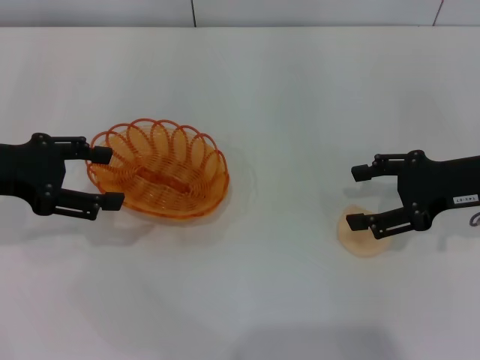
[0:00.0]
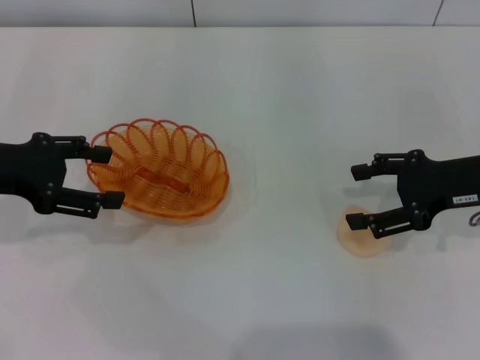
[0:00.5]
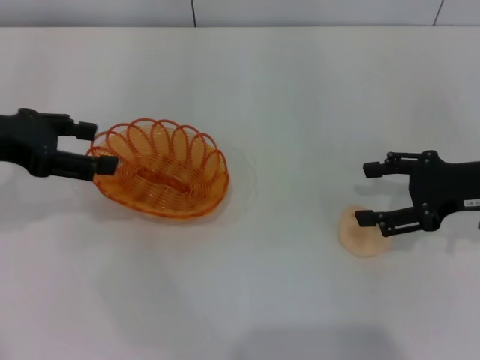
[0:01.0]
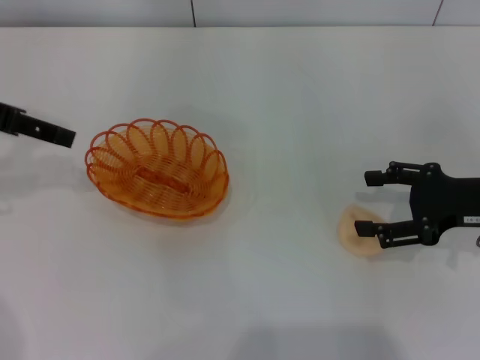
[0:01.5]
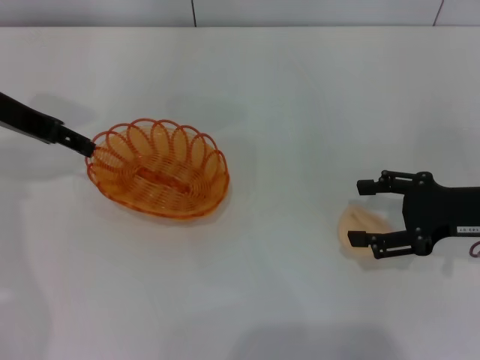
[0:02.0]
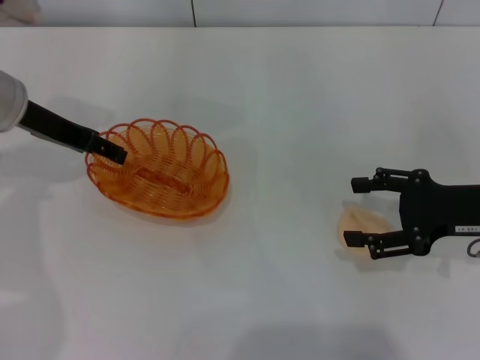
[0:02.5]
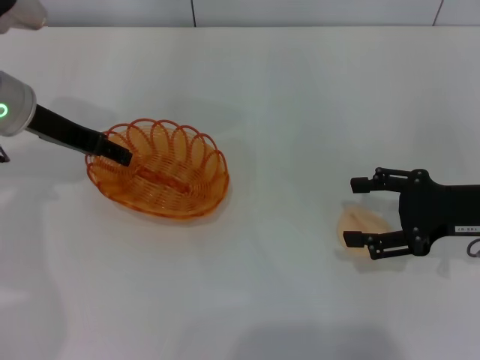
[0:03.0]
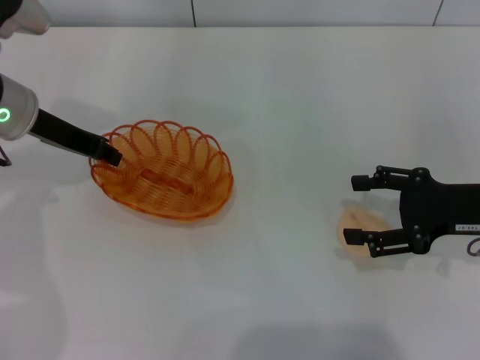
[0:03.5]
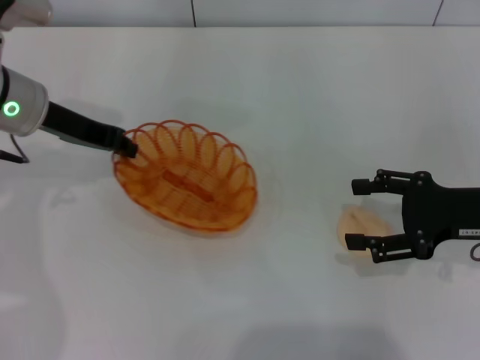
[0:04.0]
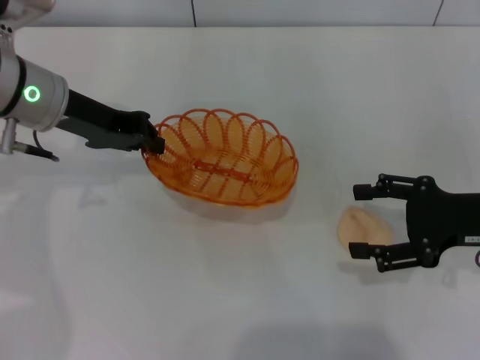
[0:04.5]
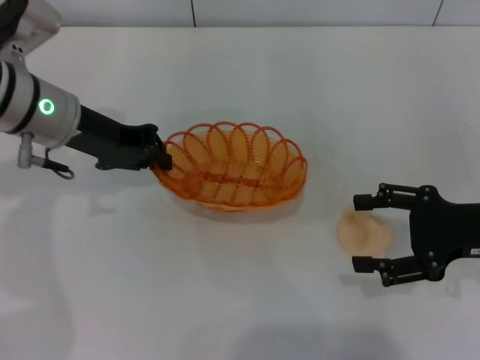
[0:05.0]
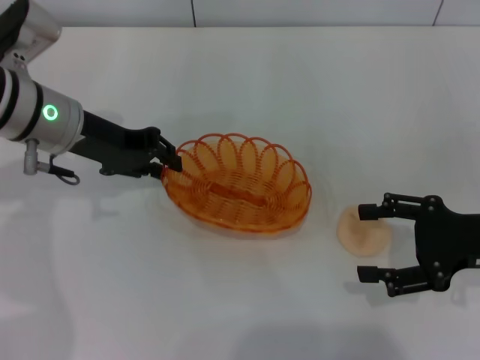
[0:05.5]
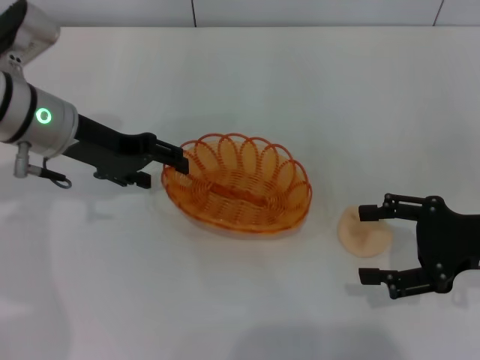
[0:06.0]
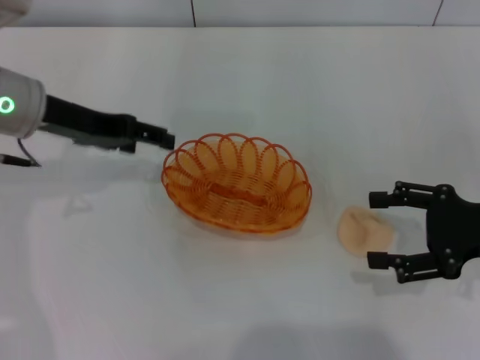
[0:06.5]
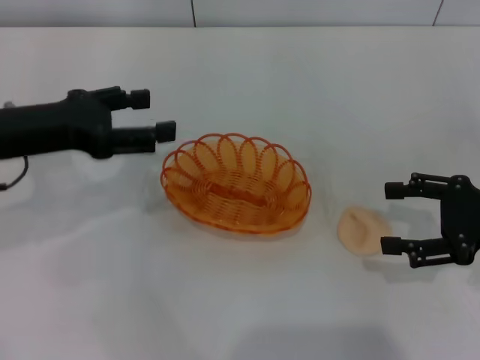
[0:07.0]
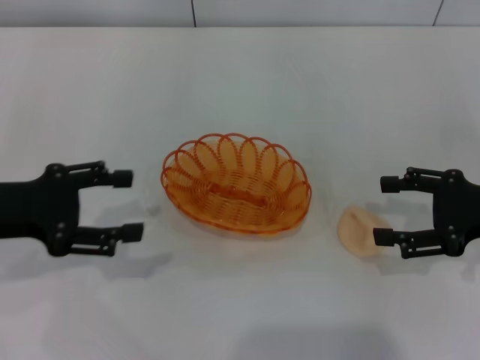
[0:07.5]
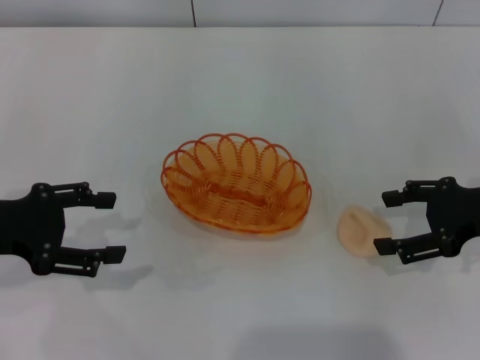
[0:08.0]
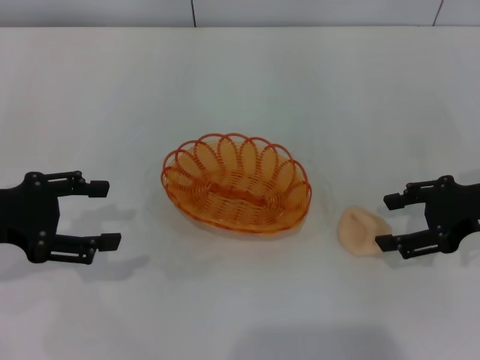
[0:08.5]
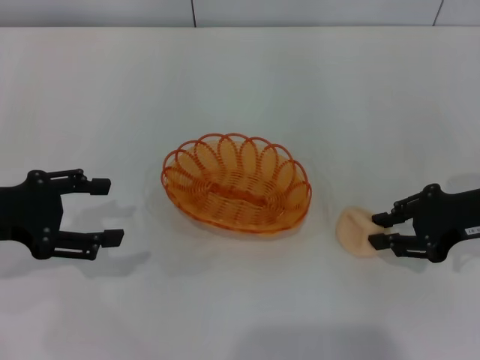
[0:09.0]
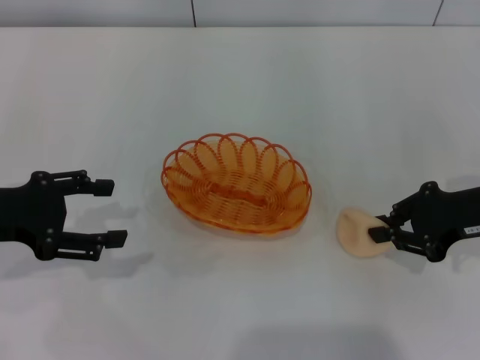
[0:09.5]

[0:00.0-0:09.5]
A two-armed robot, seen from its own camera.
Step, 0:00.0 to 0:04.5: Pick up the basket with the left gripper.
Step, 0:05.0 to 0:06.5: Place the basket in the center of view with the left gripper.
0:00.0 to 0:02.0: The left gripper shifts some 5 cm forward.
0:02.0 to 0:04.0: The left gripper changes place by some 5 cm, and closes its fingers.
0:05.5 to 0:07.5: The left gripper goes roughly 15 cm backward and to the left, and opens its fingers.
0:07.5 to 0:09.5: The right gripper closes up.

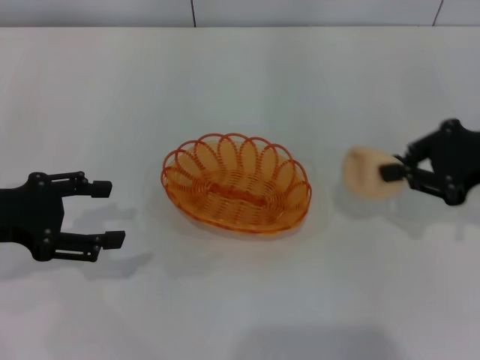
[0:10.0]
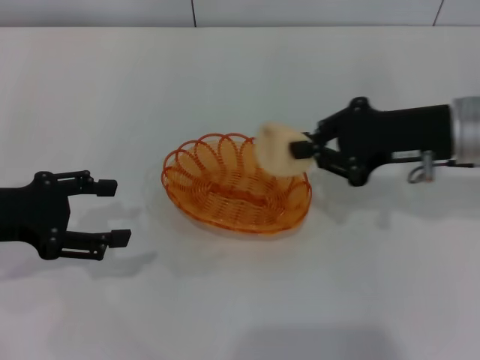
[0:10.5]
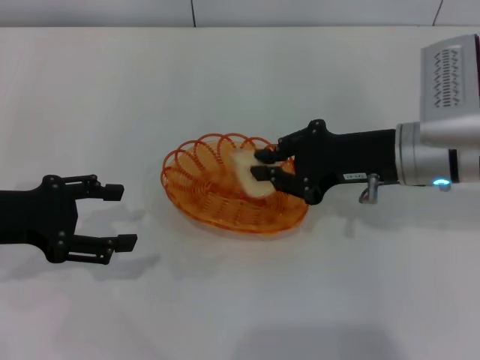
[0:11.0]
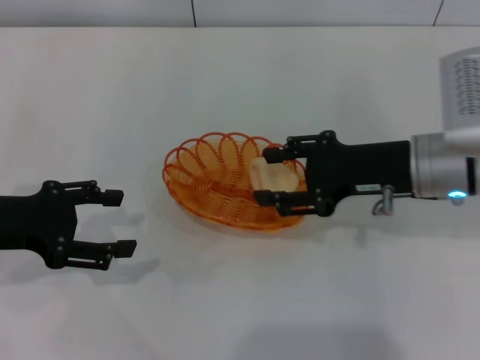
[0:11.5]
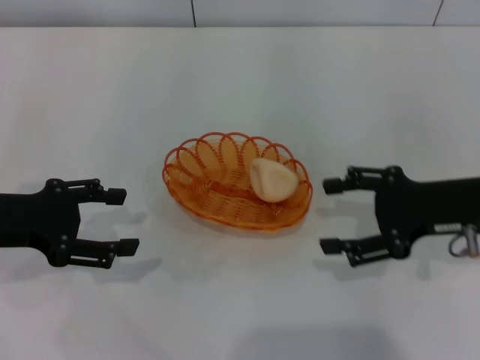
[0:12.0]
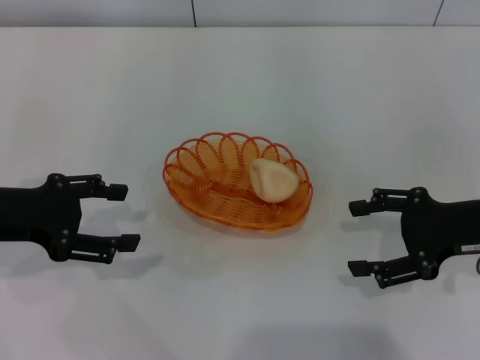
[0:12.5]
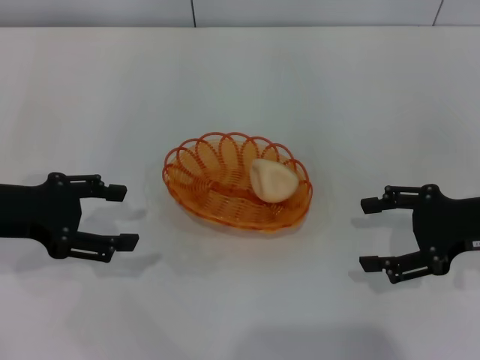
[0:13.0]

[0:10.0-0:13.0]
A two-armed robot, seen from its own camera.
Step, 0:10.0 to 0:11.5: Place the egg yolk pastry into the basket with the right gripper.
0:10.0 to 0:11.5: The right gripper shifts about 10 cm to the left, and opens up.
0:11.5 to 0:13.0: The right gripper goes about 10 cm to the right, and opens up.

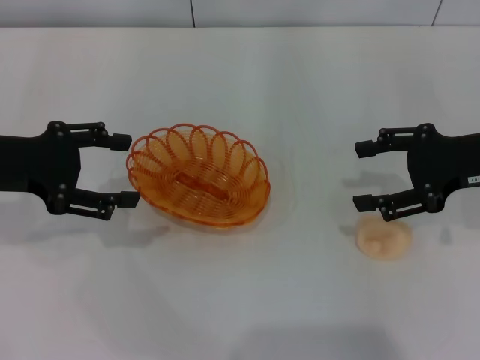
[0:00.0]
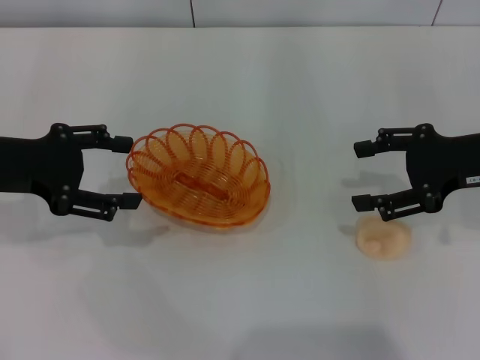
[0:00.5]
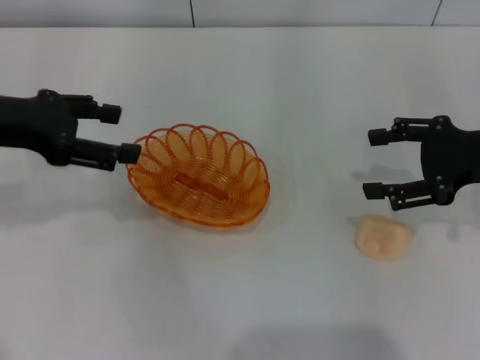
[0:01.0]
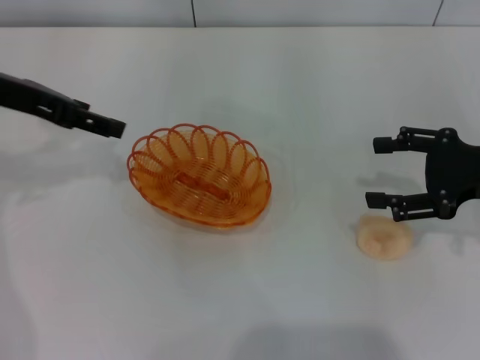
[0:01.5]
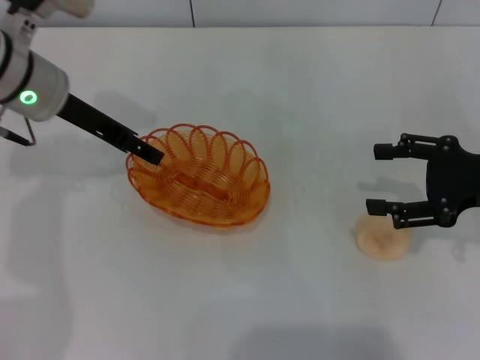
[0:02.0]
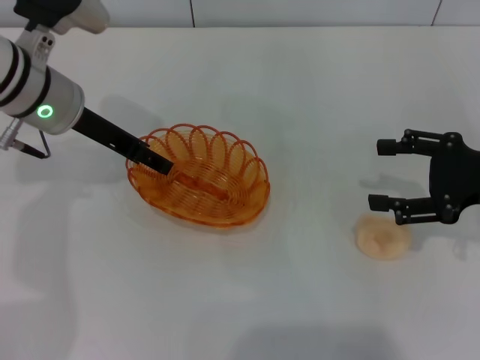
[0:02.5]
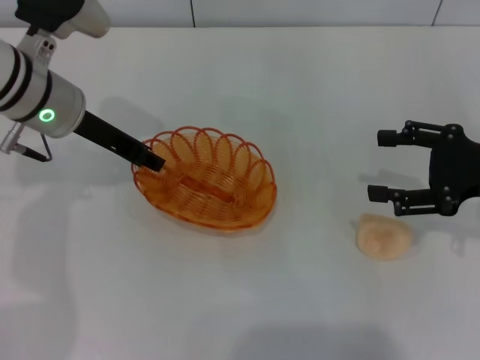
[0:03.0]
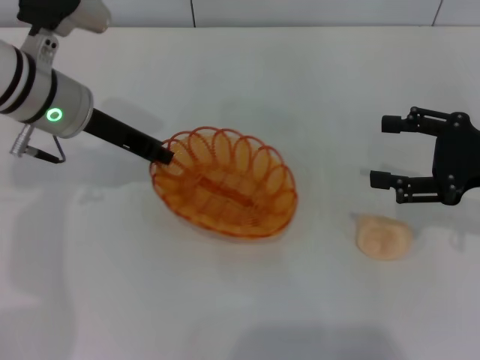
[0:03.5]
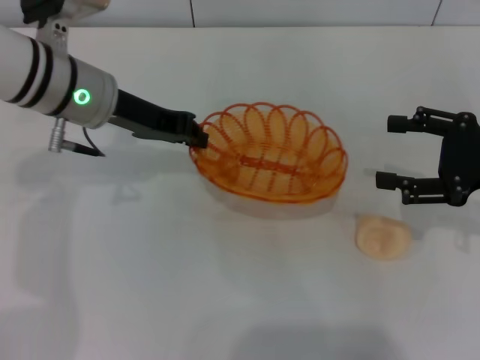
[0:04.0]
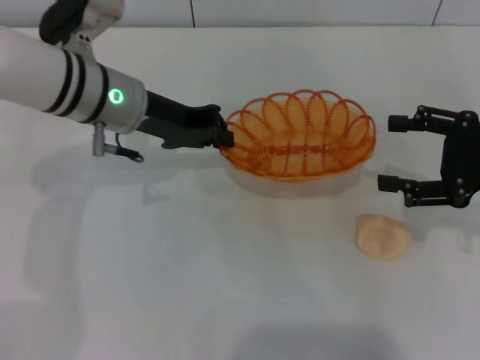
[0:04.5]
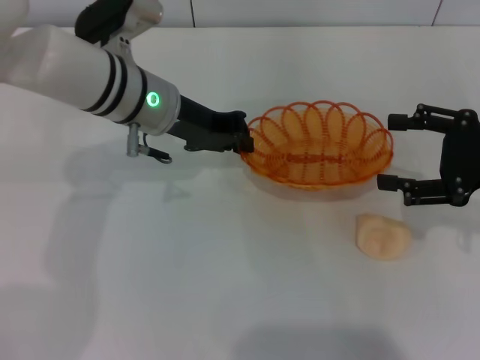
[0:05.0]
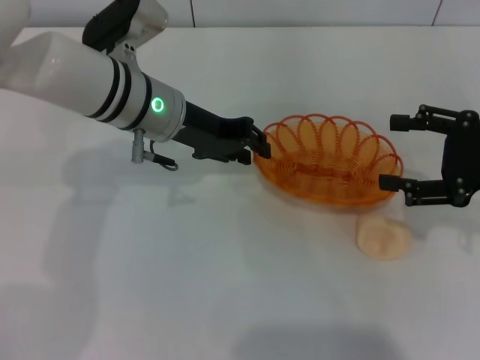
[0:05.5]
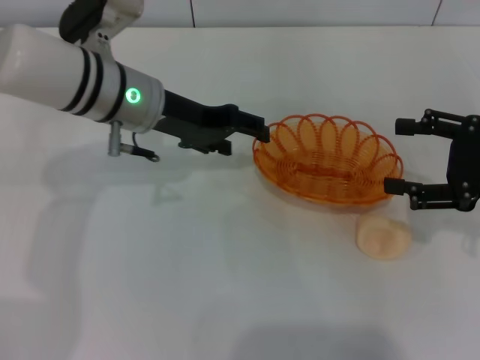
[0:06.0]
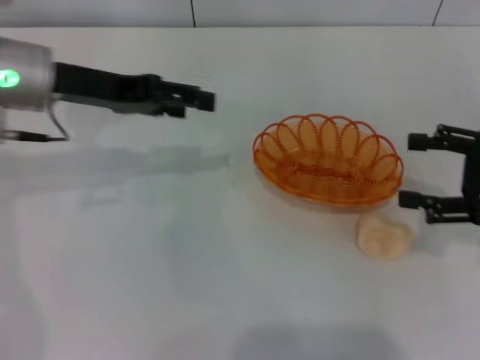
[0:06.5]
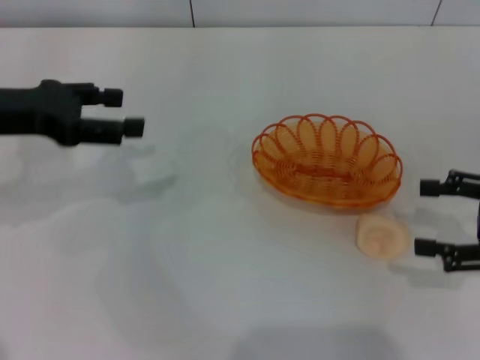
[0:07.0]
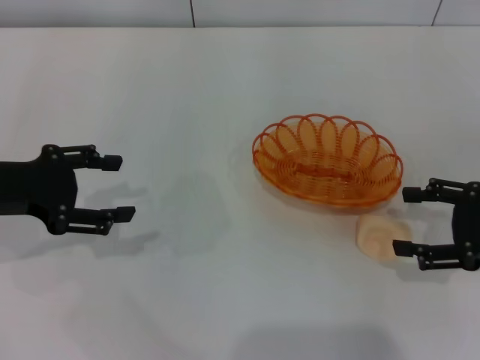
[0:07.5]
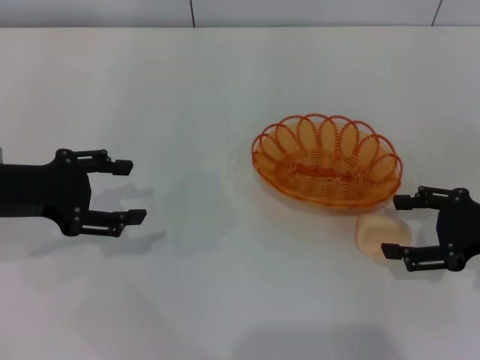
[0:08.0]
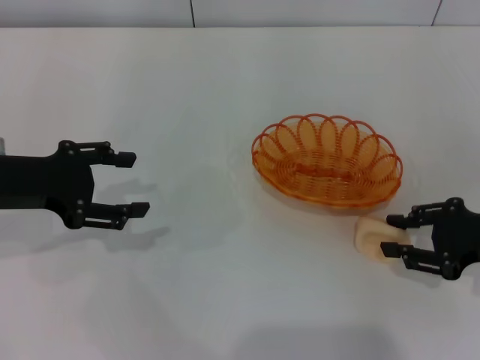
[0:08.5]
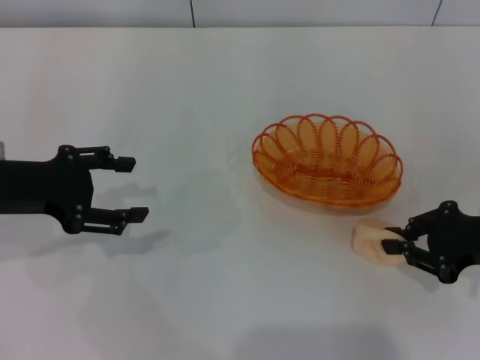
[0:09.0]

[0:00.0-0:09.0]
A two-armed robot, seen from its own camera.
Step, 0:00.0 to 0:03.5: Pick up the basket with the left gripper.
Step, 0:04.5 to 0:06.0: Place the basket in the center of view with the left gripper.
0:00.0 to 0:02.0: The left gripper travels forward and to the right by some 10 cm.
0:02.0 to 0:04.5: The left gripper is displaced to the right by roughly 5 cm, and closes.
0:04.5 to 0:07.0: The left gripper travels to the left and backward by about 15 cm, and opens its fingers. Meanwhile the right gripper shifts by about 5 cm.
0:07.0 to 0:09.0: The left gripper shifts by approximately 5 cm; the right gripper moves approximately 5 cm, and closes its fingers.

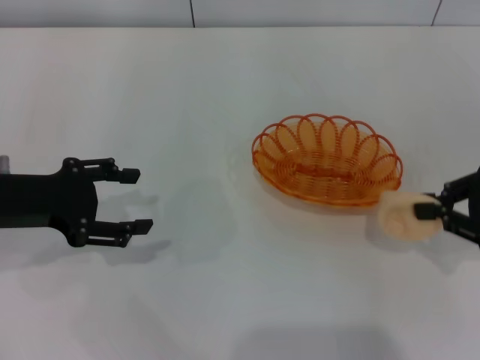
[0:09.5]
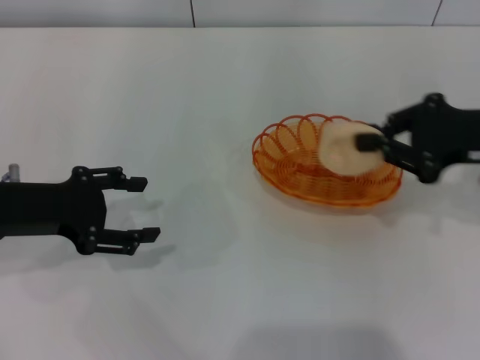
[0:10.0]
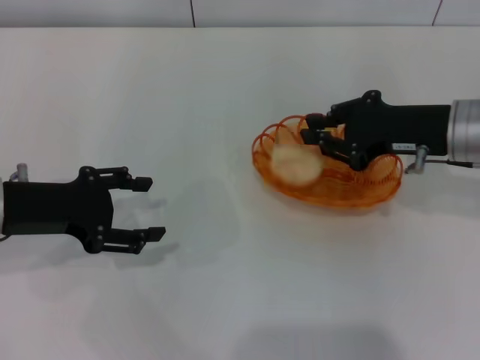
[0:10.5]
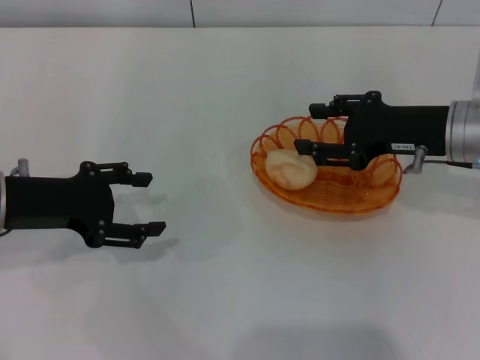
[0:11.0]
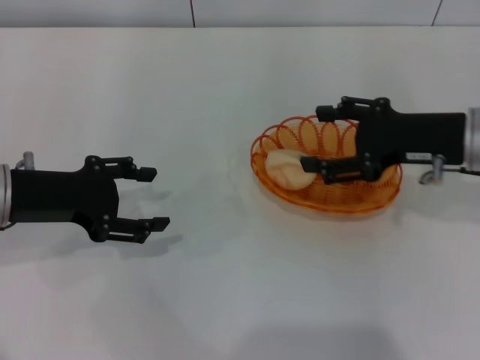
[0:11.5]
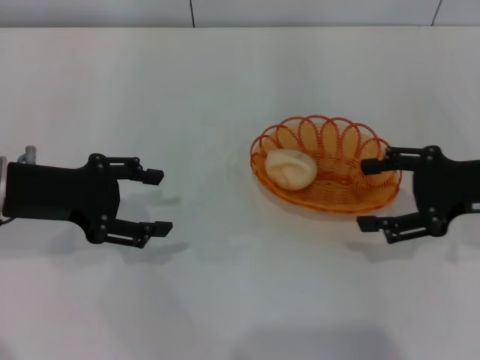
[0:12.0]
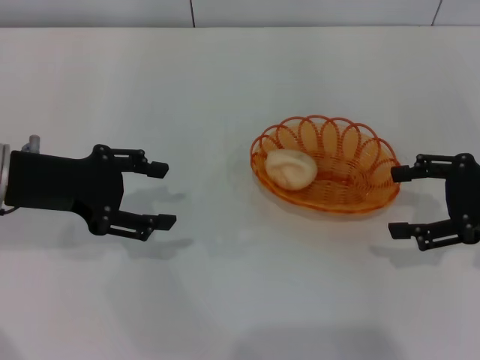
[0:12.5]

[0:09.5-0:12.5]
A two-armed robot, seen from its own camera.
Step, 0:10.0 to 0:12.0: Place the egg yolk pastry into the basket with the right gripper.
0:09.5 to 0:11.0: The right gripper shifts some 15 cm to the left and forward, and opens up.
0:11.0 to 0:12.5: The right gripper travels to the right and backward by about 10 cm, and opens.
